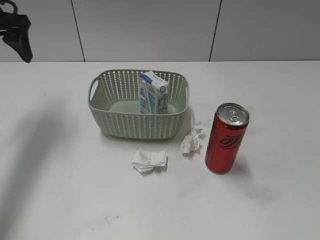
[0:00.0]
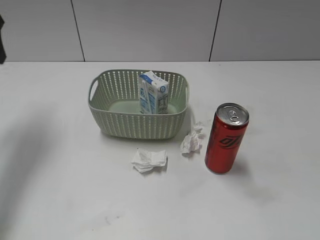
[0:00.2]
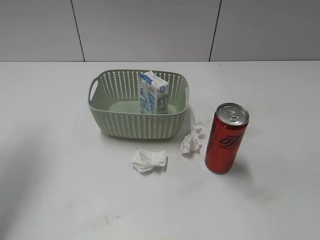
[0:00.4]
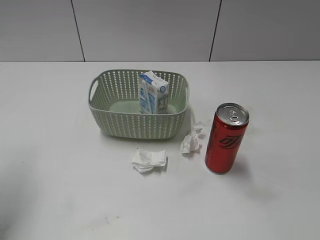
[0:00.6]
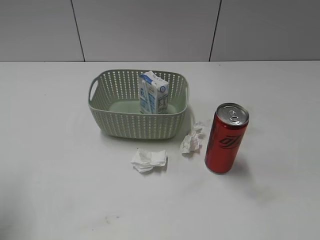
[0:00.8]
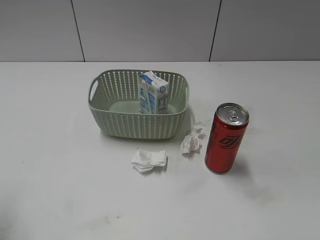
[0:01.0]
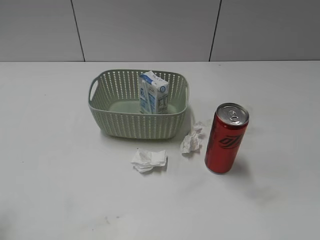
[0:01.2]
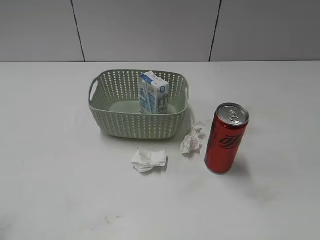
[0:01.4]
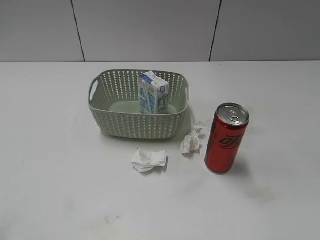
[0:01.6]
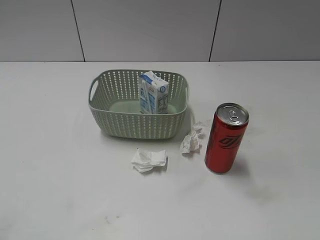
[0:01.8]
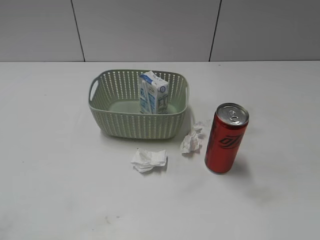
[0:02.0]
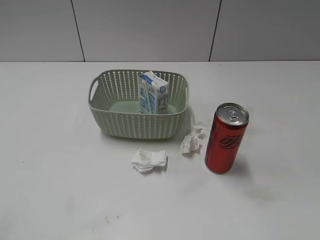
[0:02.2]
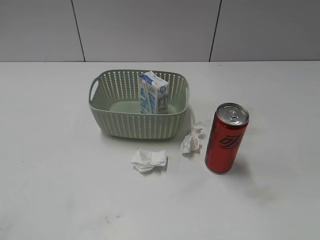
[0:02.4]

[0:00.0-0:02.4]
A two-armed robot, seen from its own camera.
0:00.0 to 0:01.2: The left gripper is displaced backward by roughly 30 cm.

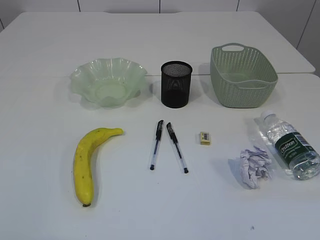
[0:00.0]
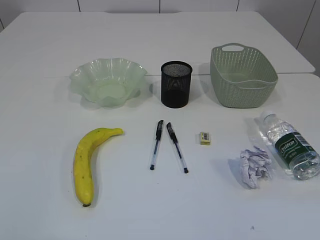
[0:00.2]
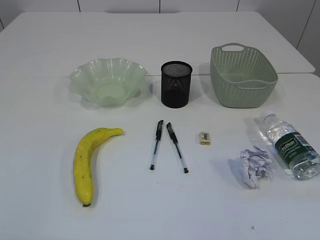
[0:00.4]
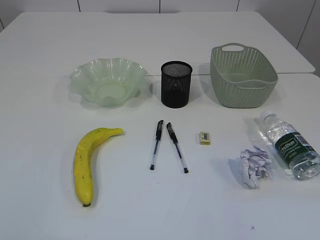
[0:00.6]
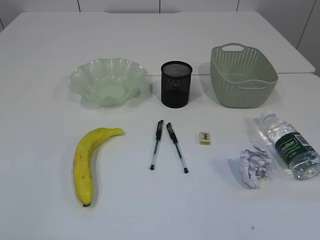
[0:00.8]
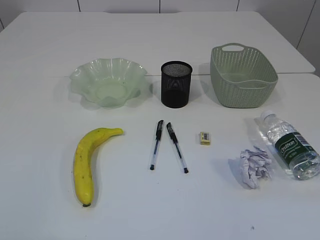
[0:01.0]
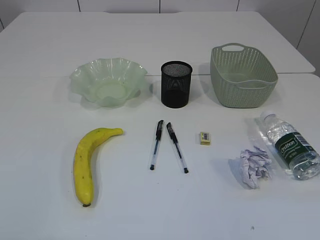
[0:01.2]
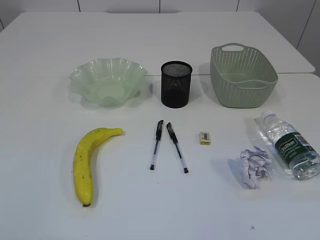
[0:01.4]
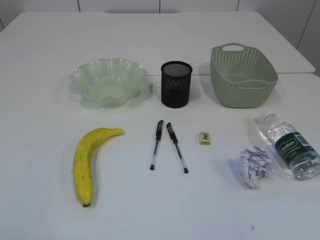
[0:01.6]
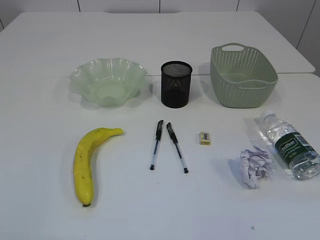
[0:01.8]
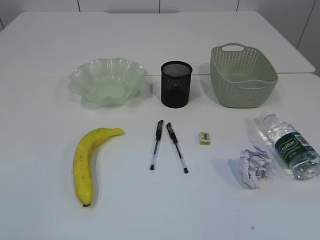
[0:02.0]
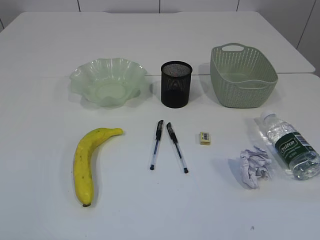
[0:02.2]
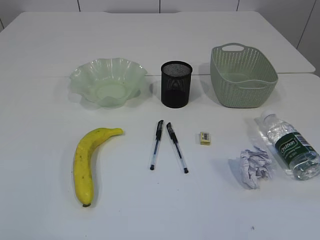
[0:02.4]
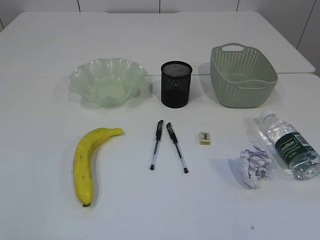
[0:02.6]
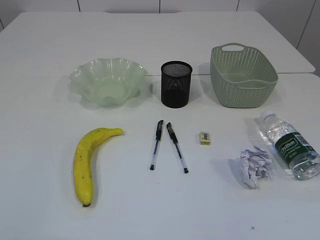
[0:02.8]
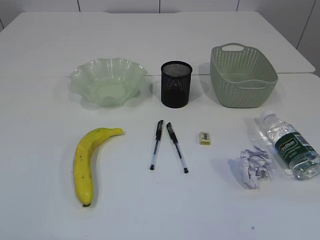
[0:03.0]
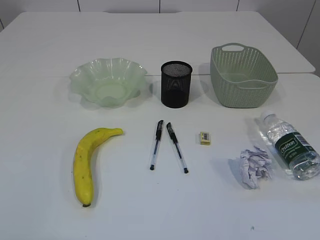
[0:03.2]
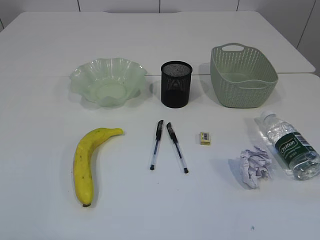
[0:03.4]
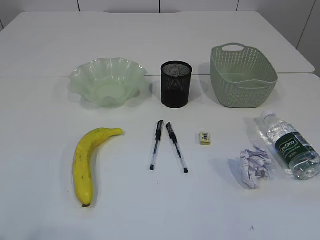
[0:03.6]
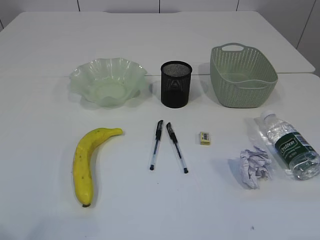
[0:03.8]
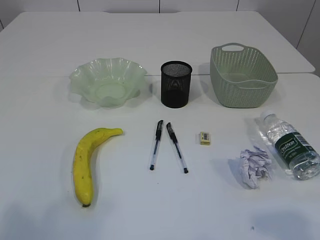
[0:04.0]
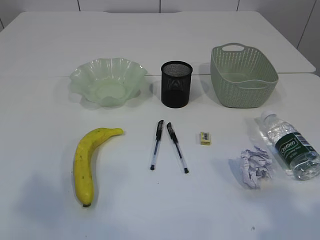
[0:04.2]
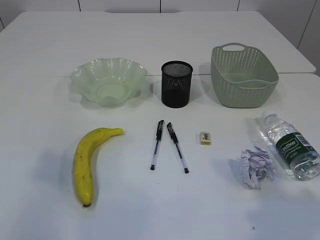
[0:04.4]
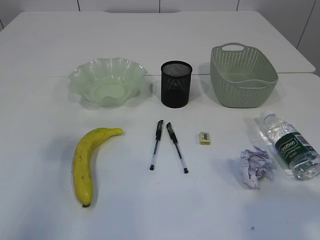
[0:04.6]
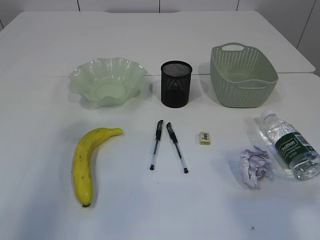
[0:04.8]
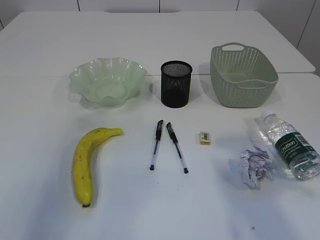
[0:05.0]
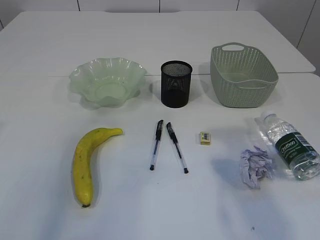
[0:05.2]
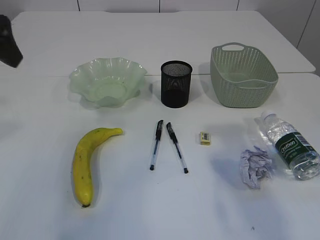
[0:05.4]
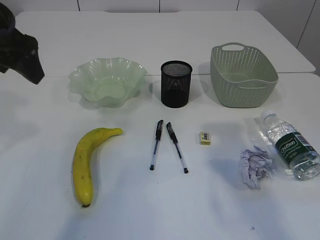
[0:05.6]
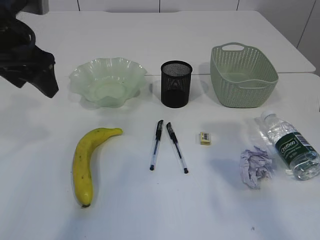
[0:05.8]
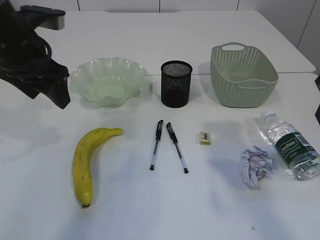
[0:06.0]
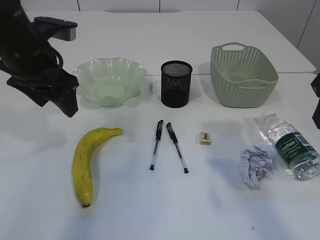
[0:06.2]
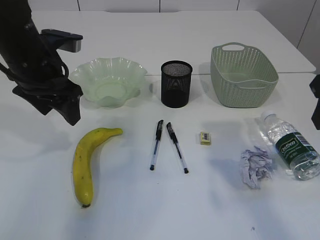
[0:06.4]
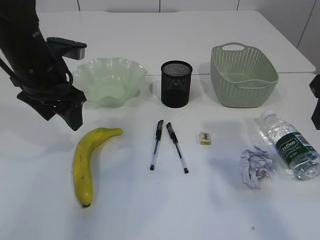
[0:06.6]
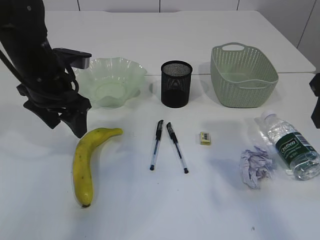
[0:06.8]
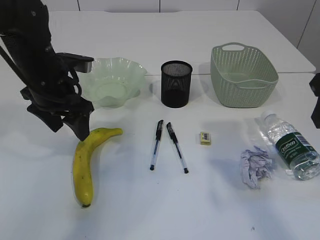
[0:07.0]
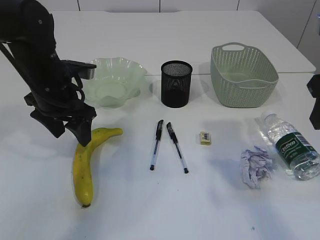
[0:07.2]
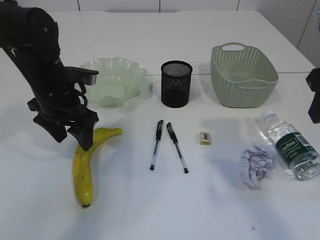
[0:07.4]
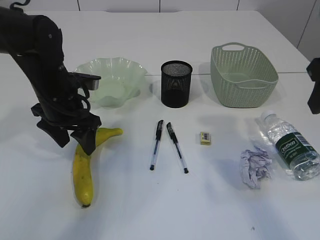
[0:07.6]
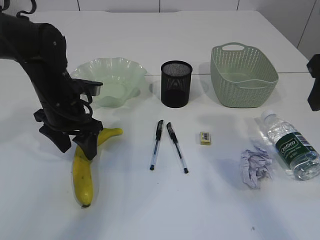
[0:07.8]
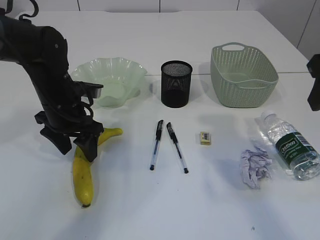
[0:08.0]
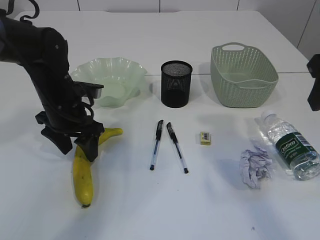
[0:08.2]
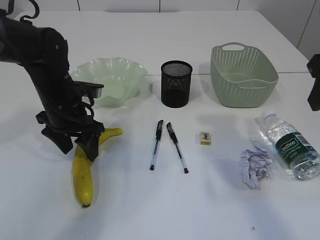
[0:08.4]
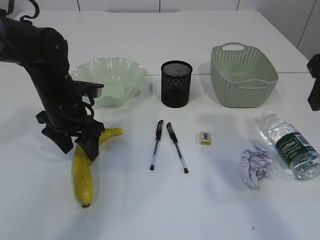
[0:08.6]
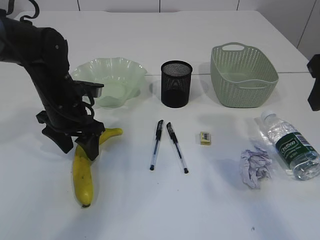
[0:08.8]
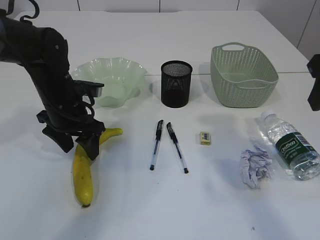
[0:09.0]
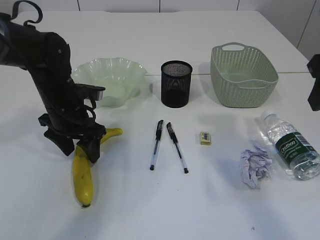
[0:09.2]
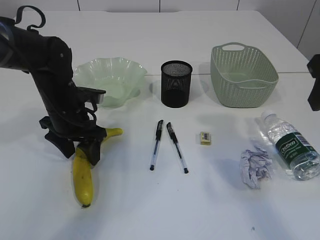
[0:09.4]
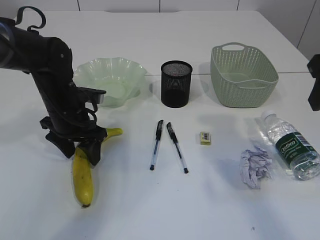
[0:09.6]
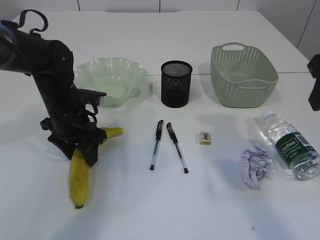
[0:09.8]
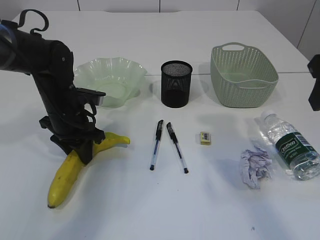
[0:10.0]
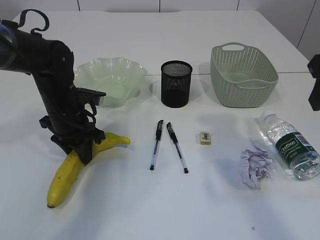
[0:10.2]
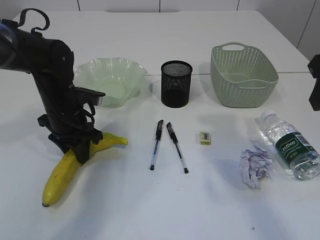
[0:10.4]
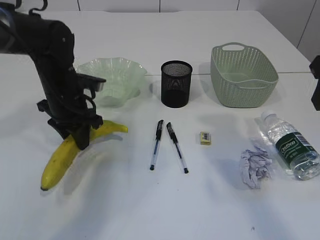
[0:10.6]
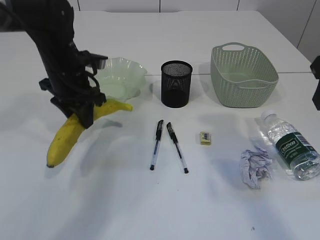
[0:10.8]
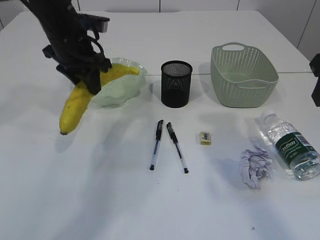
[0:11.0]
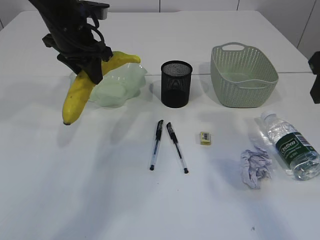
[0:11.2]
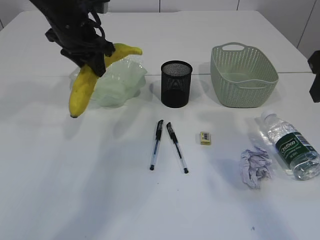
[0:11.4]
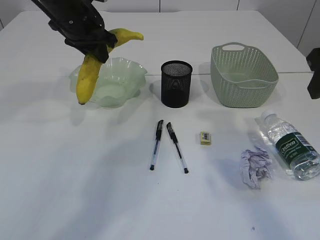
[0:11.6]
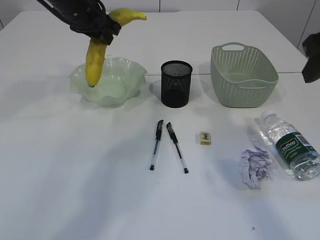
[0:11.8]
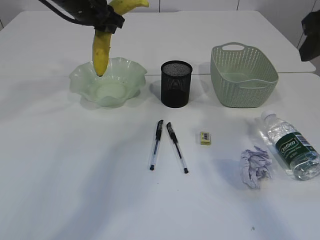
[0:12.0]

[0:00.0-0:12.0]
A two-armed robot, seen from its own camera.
0:01.6 to 0:03.0: Both grippers stay about where they are.
0:03.0 to 0:04.4: The left gripper moves upward and forward, roughly 20 cm, and opens. The right gripper travels forward and upward by roughly 15 cm.
0:04.4 to 0:06.0: The right gripper heads forward, covering about 15 cm. The left gripper travels forward, to the right and downward by some 30 cm.
0:06.0 to 0:07.6: The left gripper travels downward by about 10 cm.
0:07.6 to 0:09.0: The grippers make only small movements.
0:09.0 to 0:10.4: The left gripper closes up.
0:10.4 to 0:12.0: The left gripper goes roughly 20 cm upward and forward.

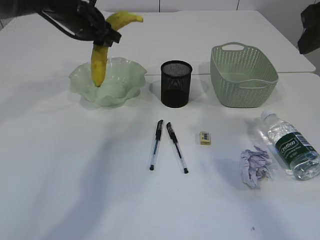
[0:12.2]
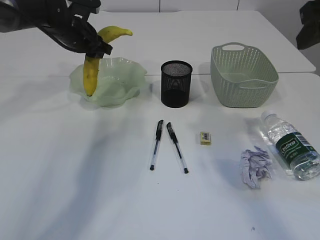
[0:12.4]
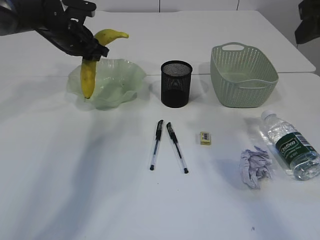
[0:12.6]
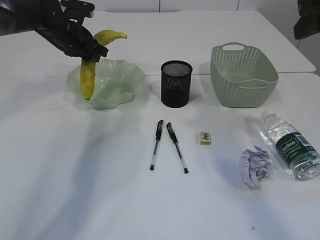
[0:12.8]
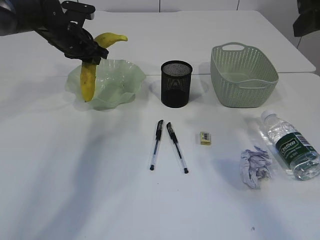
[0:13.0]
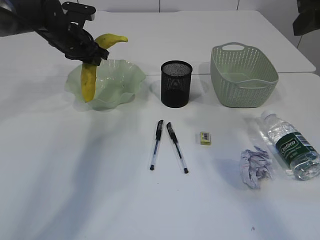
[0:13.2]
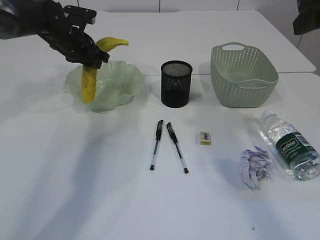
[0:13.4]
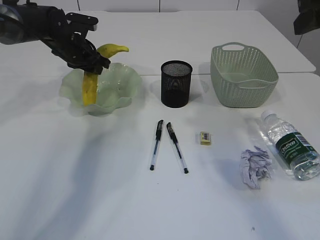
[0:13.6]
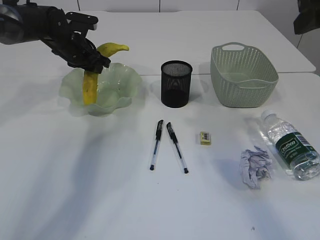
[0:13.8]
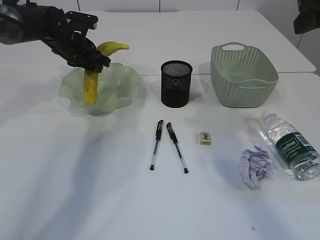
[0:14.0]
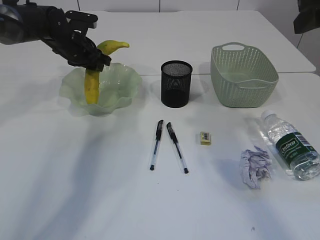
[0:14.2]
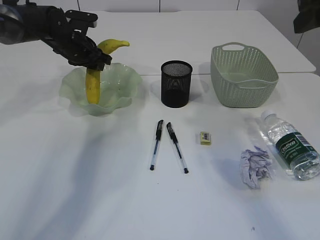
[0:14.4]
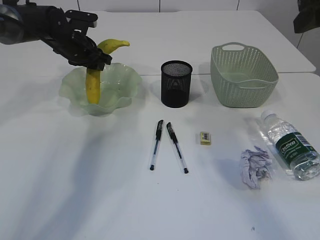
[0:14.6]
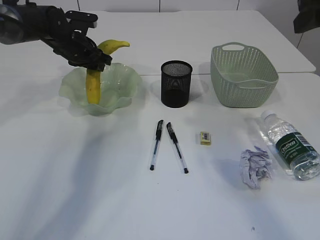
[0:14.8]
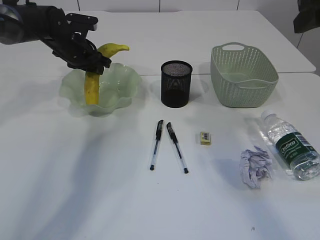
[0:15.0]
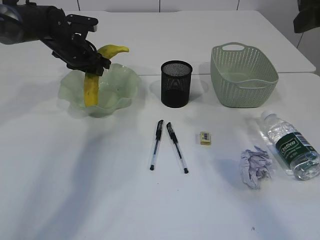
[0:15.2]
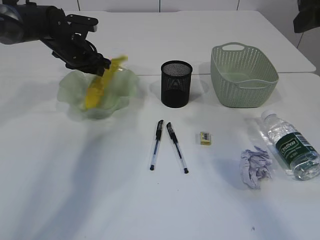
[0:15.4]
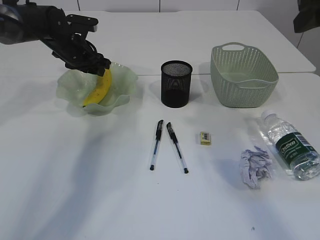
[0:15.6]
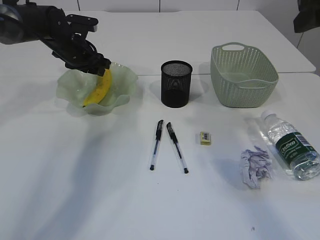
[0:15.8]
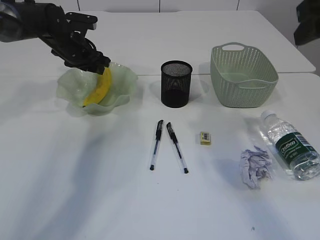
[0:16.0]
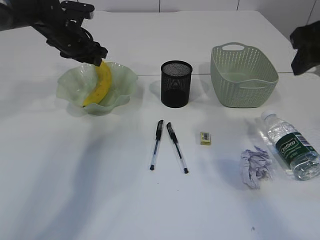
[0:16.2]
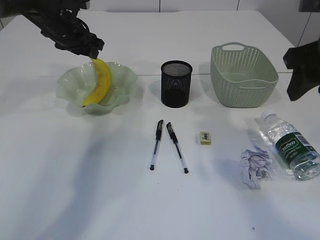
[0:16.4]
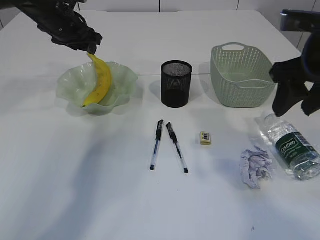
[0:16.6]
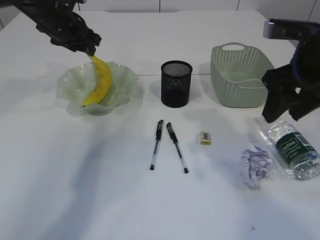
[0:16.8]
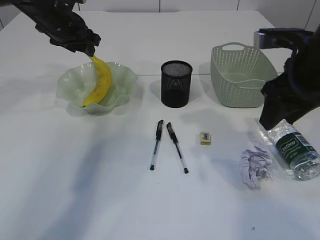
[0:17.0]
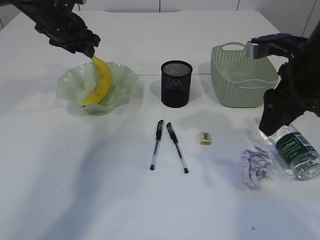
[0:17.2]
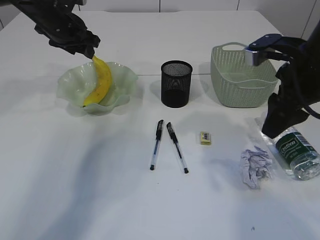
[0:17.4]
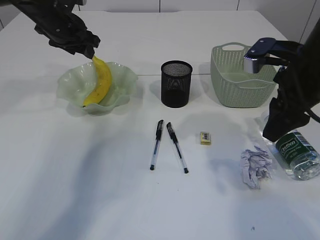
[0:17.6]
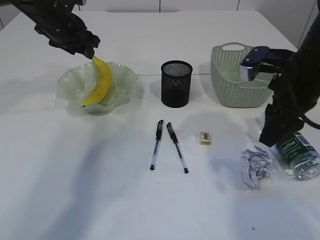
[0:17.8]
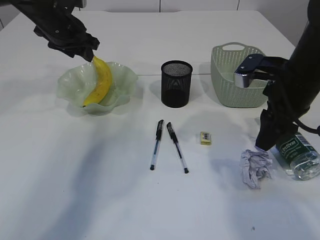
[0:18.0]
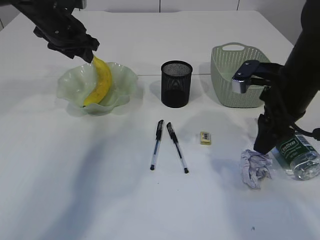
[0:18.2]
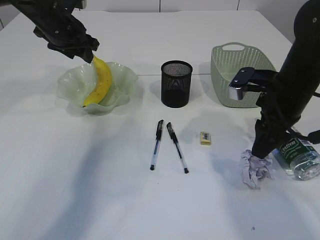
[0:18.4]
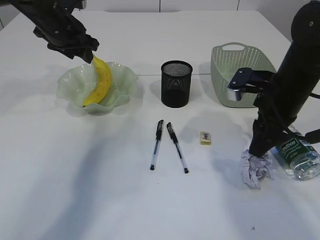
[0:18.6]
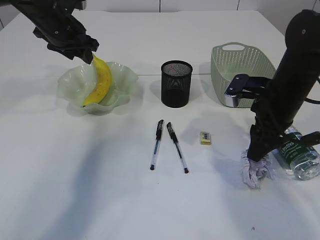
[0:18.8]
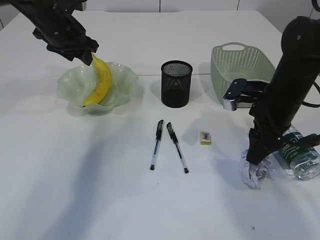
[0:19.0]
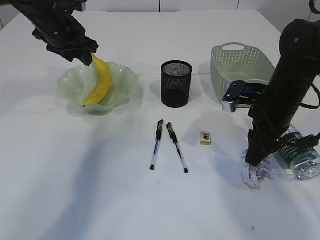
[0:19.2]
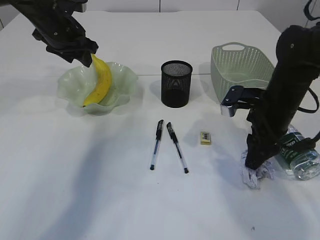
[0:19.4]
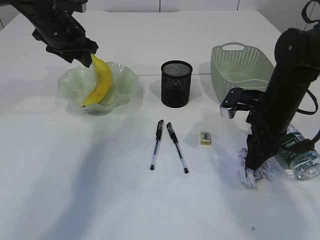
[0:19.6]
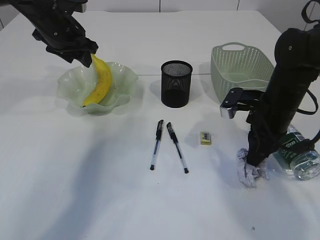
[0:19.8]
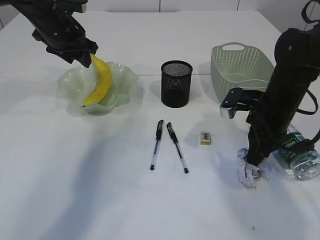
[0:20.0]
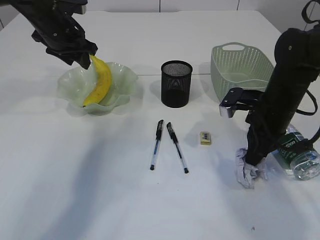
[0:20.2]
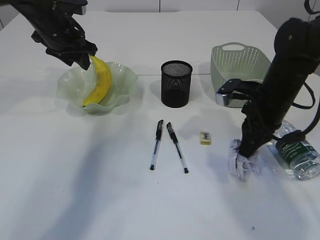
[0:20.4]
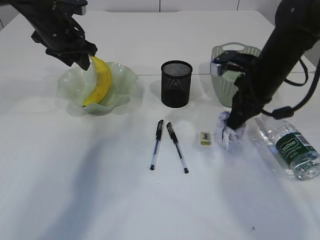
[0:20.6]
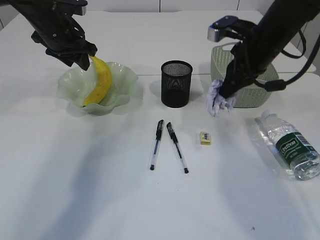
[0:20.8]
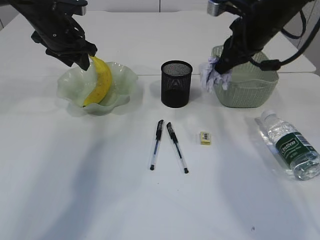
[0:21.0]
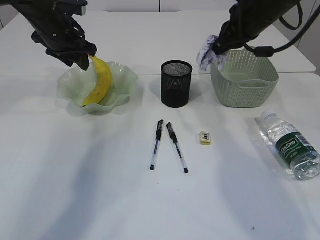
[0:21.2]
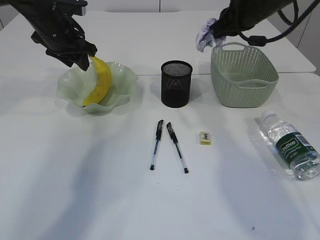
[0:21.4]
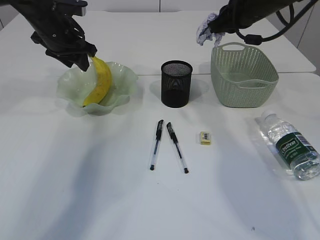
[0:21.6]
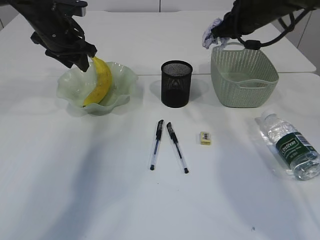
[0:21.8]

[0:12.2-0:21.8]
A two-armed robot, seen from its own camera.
Step, 0:12.2 to 0:16.4: Place the banana in the plate.
Step, 0:16.6 to 0:20.6: Pick up the waste paper.
0:12.2 to 0:13.8: The left gripper goes roughly 5 cm downward.
0:13.8 to 0:15.4: Both grippers stay put.
0:15.4 to 0:17.0: The right gripper is displaced downward by roughly 10 cm, while the left gripper moves upward, approximately 5 cm.
0:17.0 to 0:18.6: The right gripper is displaced downward by some 10 cm.
0:18.6 to 0:20.2: The right gripper closes its fingers.
0:20.2 to 0:21.8: The right gripper moves forward and upward, roughly 15 cm.
